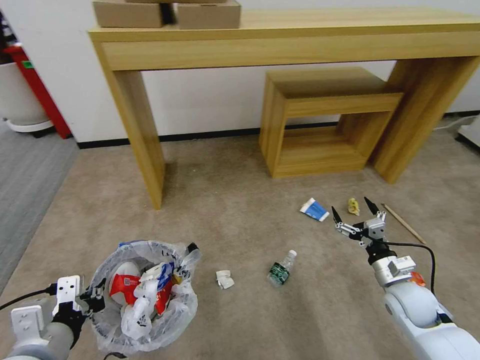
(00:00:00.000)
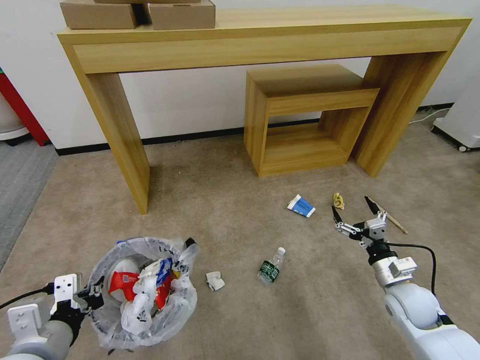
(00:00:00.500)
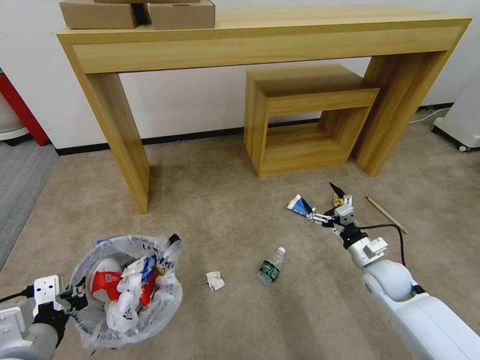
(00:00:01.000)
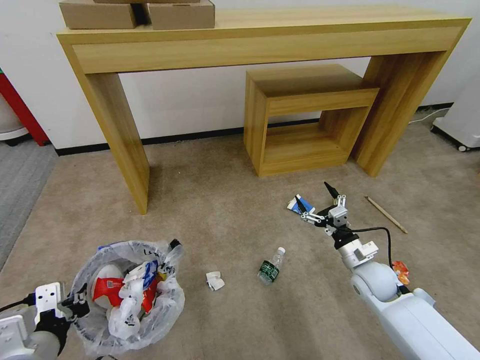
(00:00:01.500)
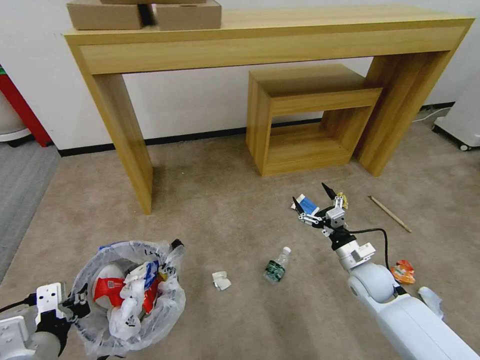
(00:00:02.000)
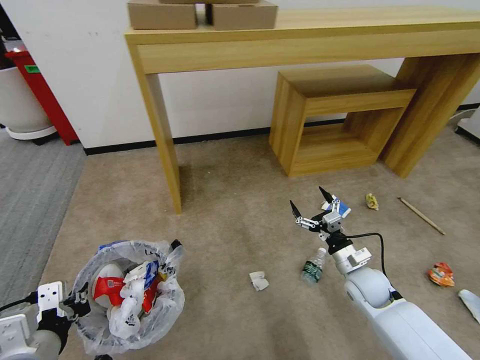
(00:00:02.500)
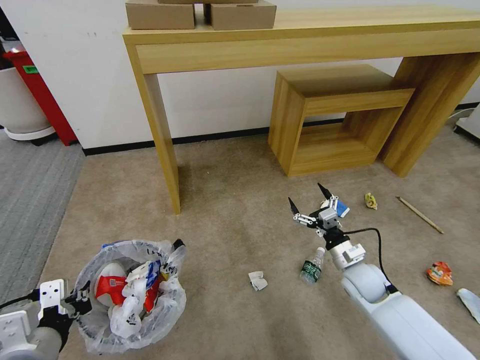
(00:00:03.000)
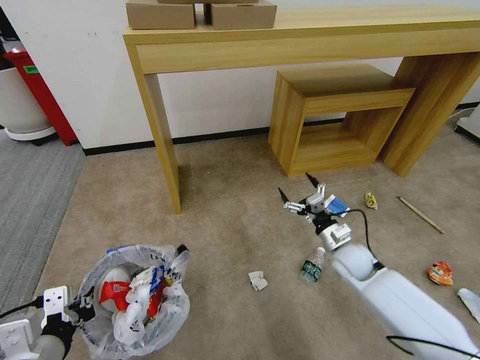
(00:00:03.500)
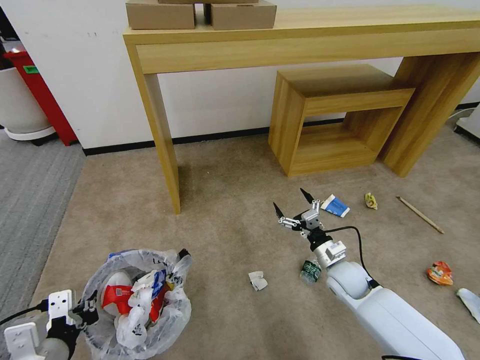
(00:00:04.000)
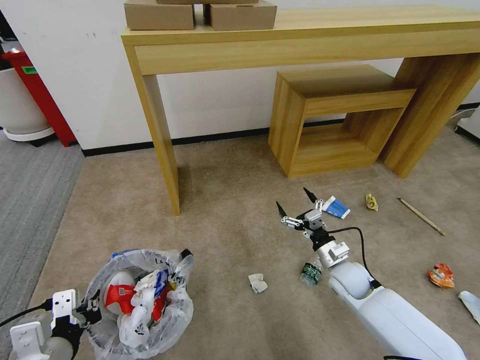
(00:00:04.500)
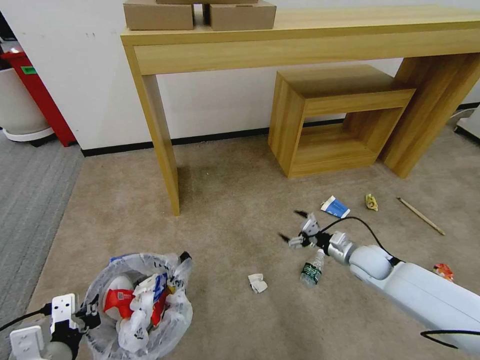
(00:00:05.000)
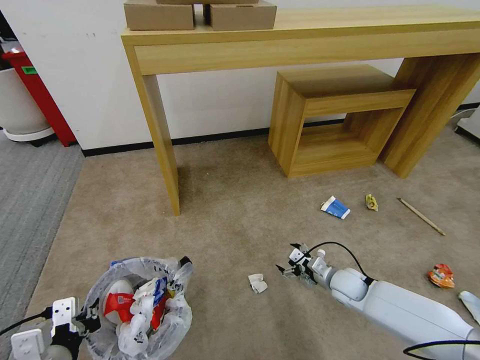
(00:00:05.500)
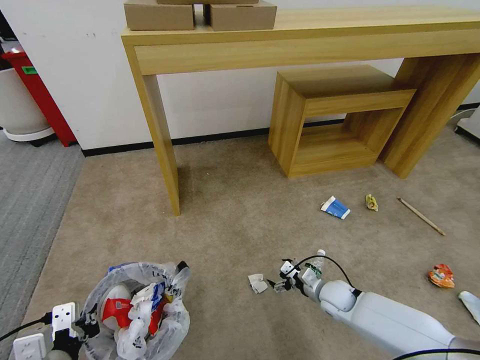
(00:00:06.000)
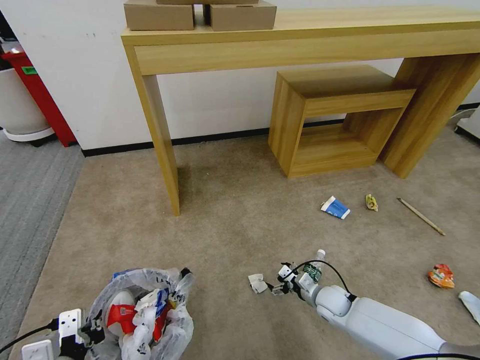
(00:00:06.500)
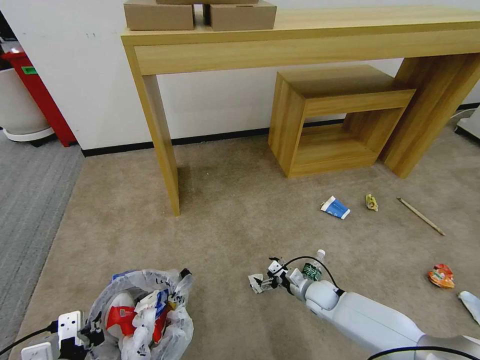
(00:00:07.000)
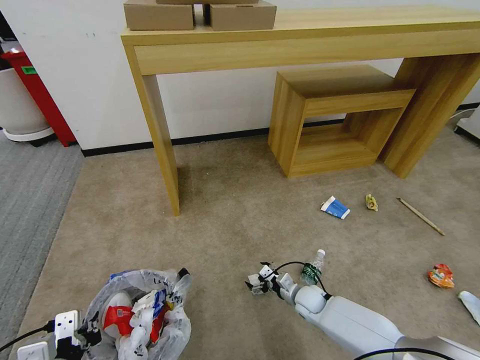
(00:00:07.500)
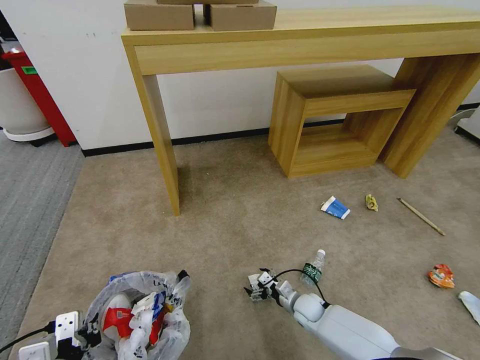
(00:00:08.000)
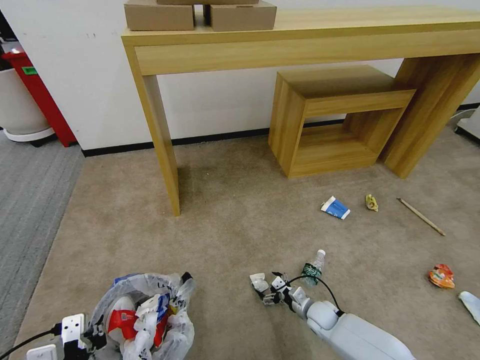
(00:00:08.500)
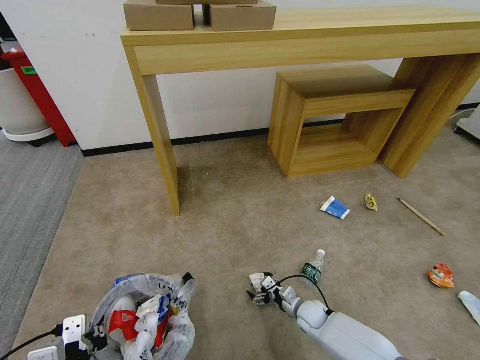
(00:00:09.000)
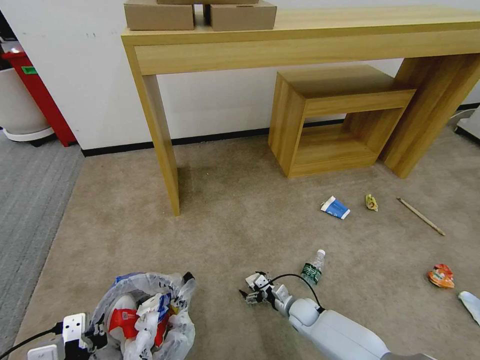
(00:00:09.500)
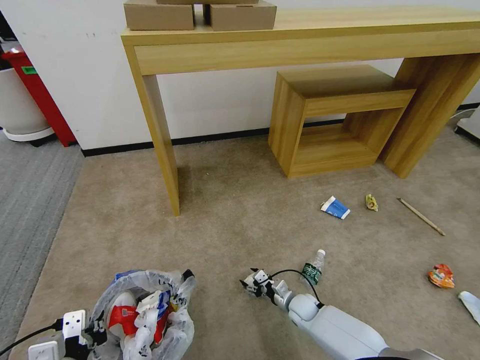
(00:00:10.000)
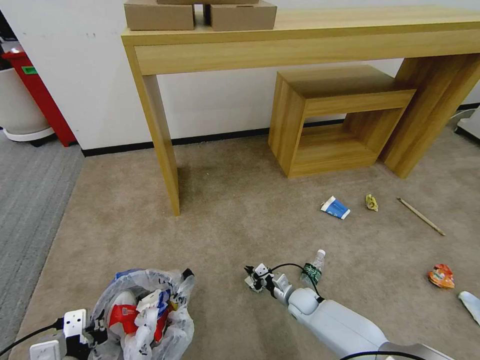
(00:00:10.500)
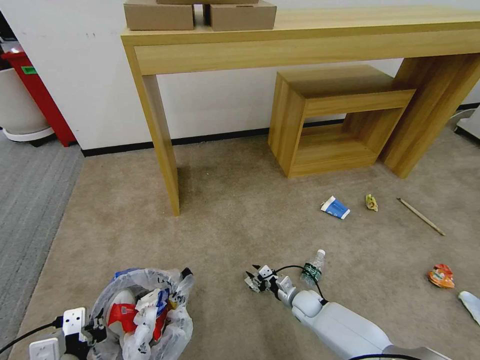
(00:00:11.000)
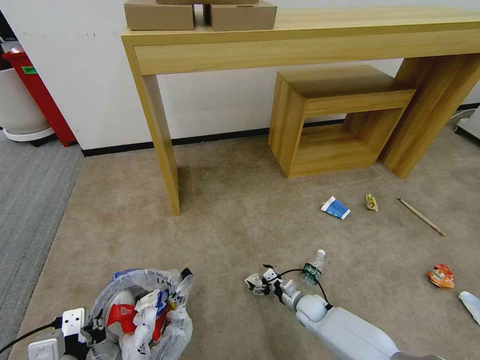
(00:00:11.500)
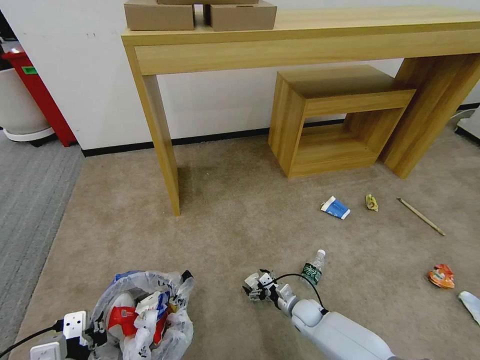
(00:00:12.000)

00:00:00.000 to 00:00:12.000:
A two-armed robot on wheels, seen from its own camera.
Task of the whole recording: Pick up the trash bin and place the garbage on the floor into it.
00:00:00.000 to 00:00:02.000: The right gripper goes about 10 cm to the left and forward.
00:00:02.000 to 00:00:04.000: The right gripper ends up about 5 cm from where it was.
00:00:04.000 to 00:00:06.000: The right gripper goes some 10 cm downward.
00:00:06.000 to 00:00:08.000: The right gripper moves downward and to the left, about 10 cm.
00:00:08.000 to 00:00:10.000: The right gripper closes.
00:00:10.000 to 00:00:12.000: The right gripper opens its fingers.

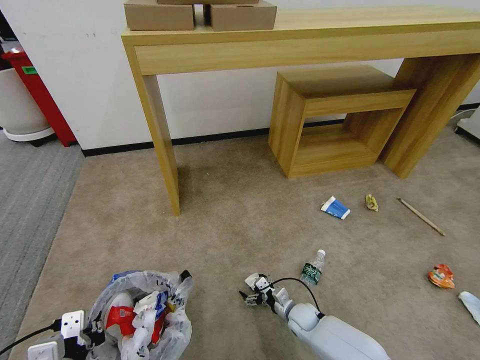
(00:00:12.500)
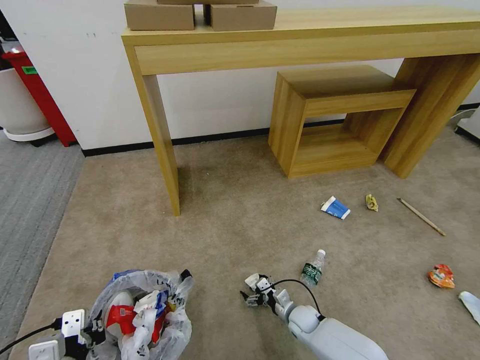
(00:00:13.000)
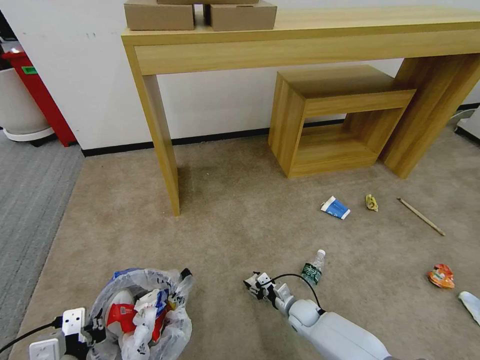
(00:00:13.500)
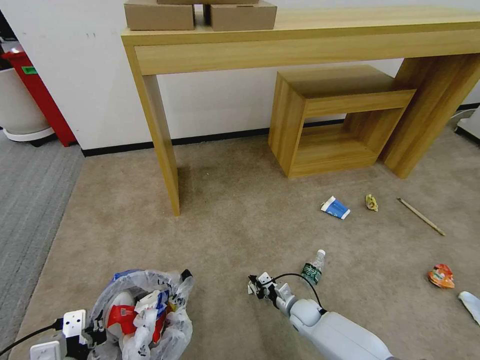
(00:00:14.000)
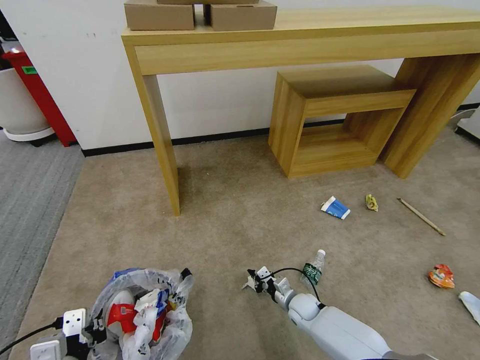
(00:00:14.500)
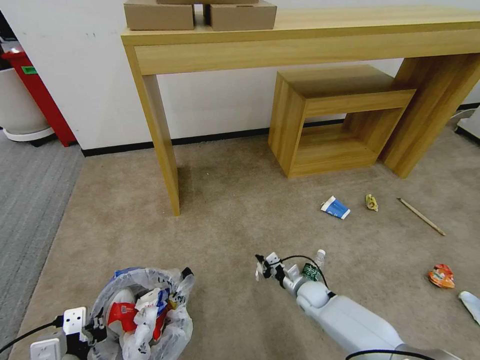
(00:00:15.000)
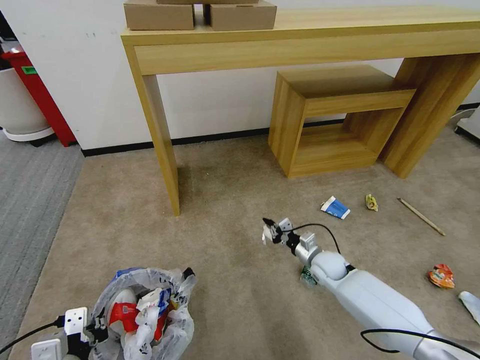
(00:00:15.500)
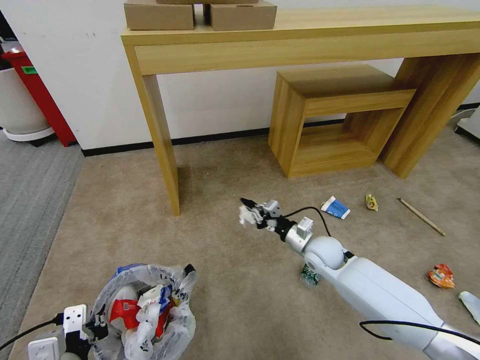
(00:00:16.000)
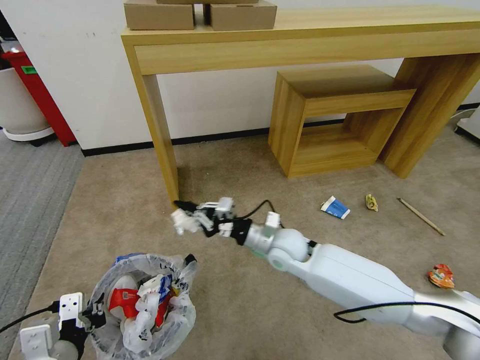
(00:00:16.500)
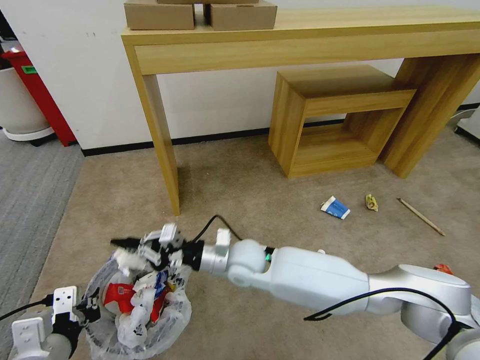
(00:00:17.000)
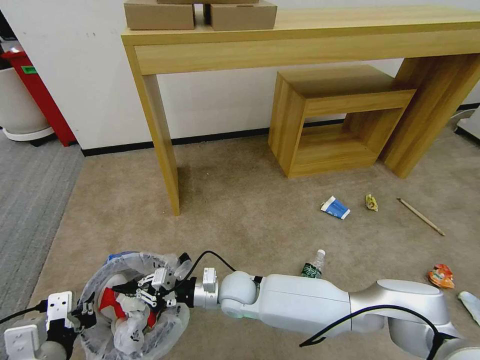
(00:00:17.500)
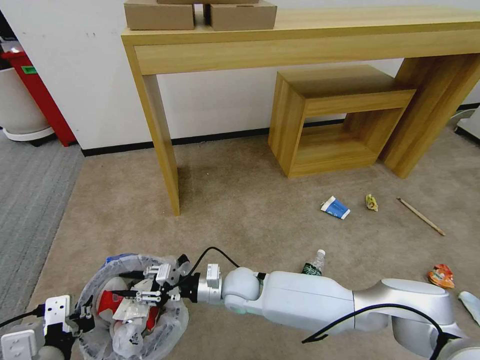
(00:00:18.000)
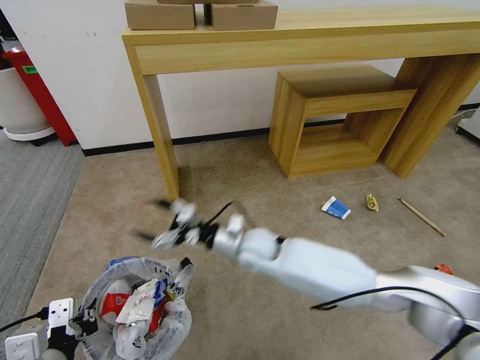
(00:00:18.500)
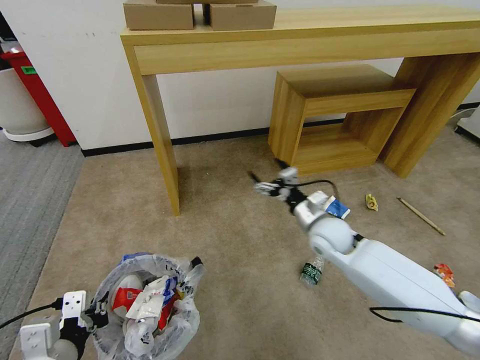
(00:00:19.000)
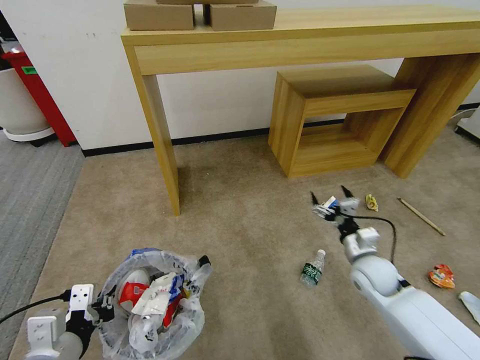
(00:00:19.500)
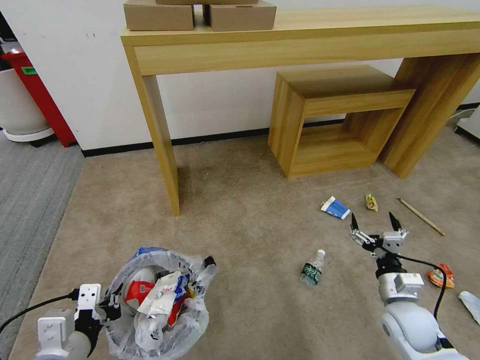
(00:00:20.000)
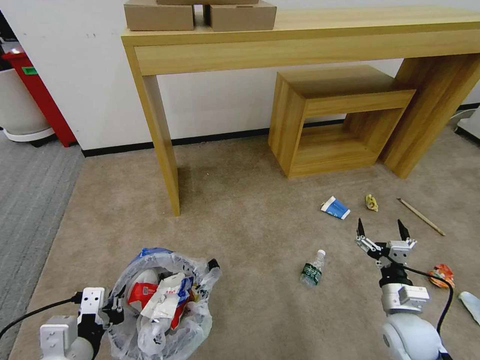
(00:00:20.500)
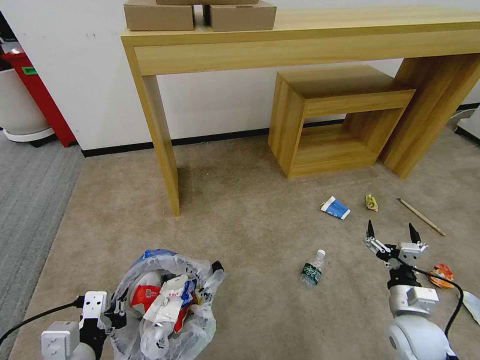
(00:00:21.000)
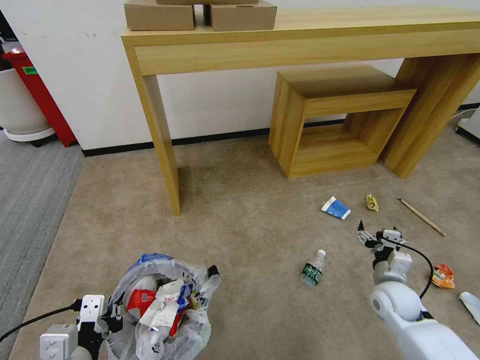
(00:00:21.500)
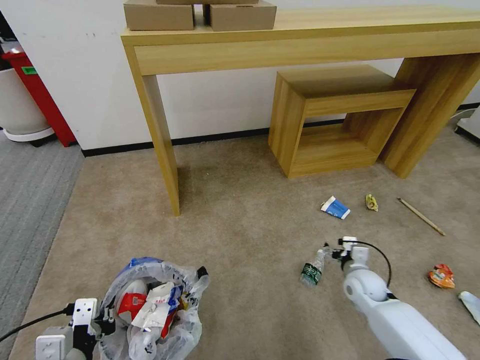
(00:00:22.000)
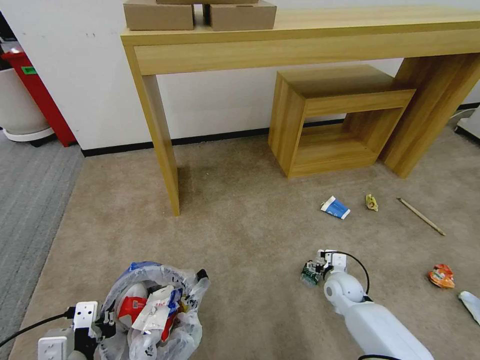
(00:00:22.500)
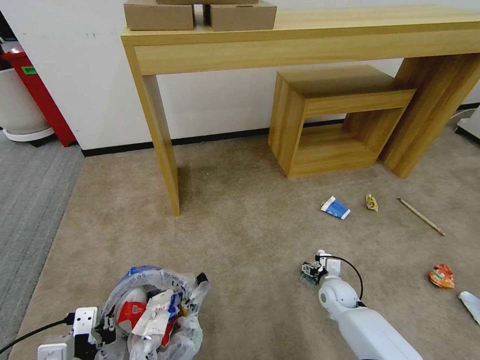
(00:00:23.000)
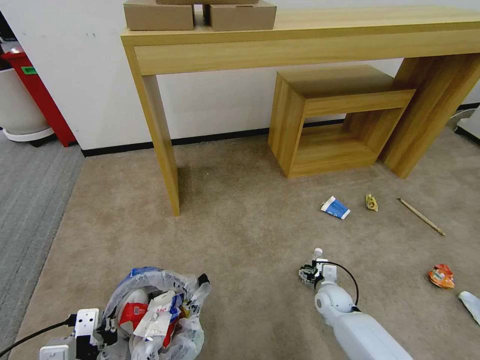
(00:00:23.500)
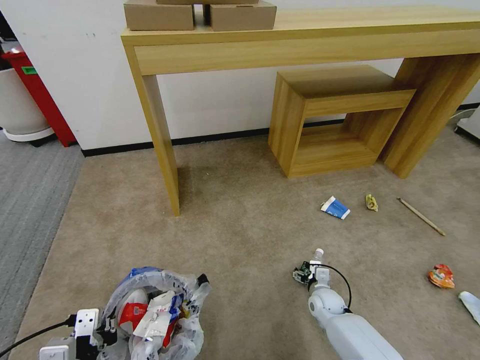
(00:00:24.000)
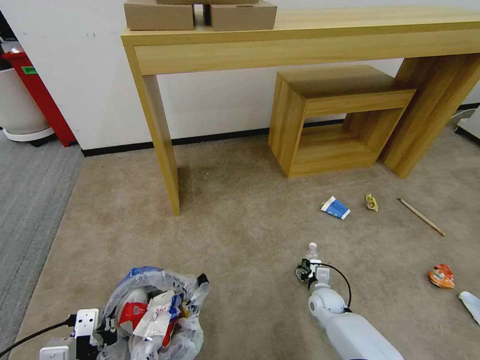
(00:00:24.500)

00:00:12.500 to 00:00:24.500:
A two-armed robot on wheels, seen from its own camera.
Task of the whole recording: Pick up the trash bin and place the garbage on the floor into it.
00:00:12.500 to 00:00:14.500: The right gripper closes.
00:00:14.500 to 00:00:16.500: The right gripper heads upward, covering about 25 cm.
00:00:16.500 to 00:00:18.500: The right gripper shifts roughly 5 cm to the left, and opens.
00:00:18.500 to 00:00:20.500: The right gripper shifts about 35 cm to the right and backward.
00:00:20.500 to 00:00:22.500: The right gripper moves forward, downward and to the left, about 15 cm.
00:00:22.500 to 00:00:24.500: The right gripper moves downward, about 5 cm.

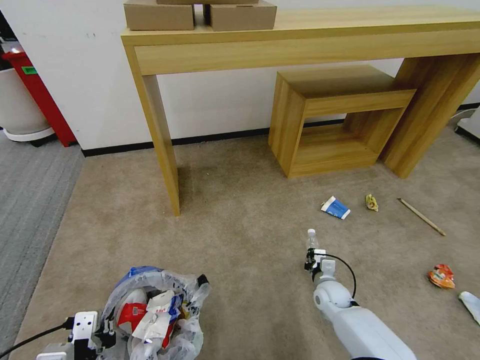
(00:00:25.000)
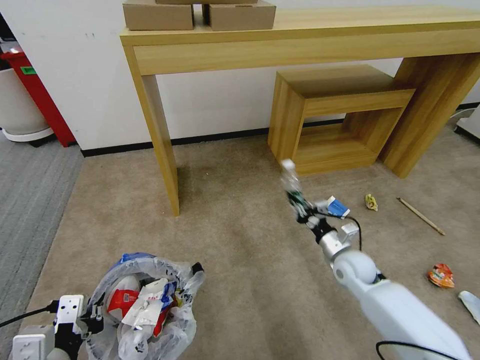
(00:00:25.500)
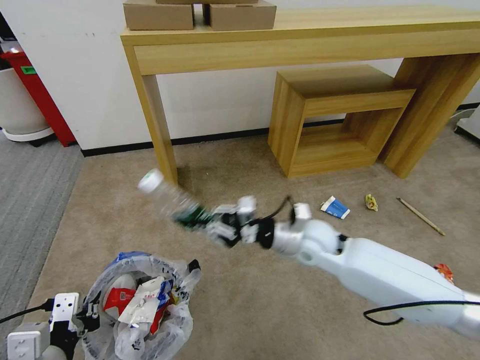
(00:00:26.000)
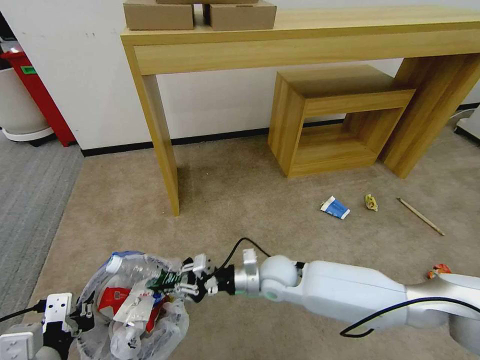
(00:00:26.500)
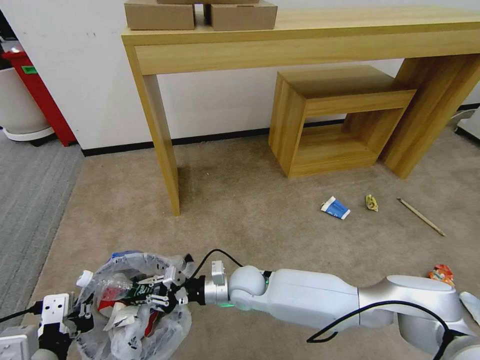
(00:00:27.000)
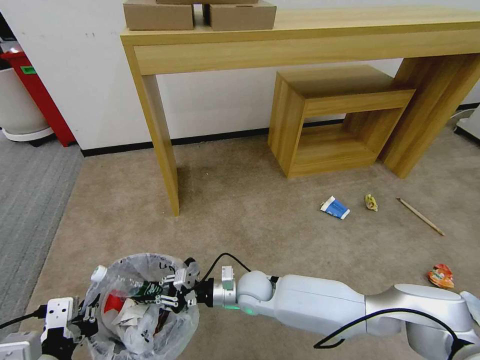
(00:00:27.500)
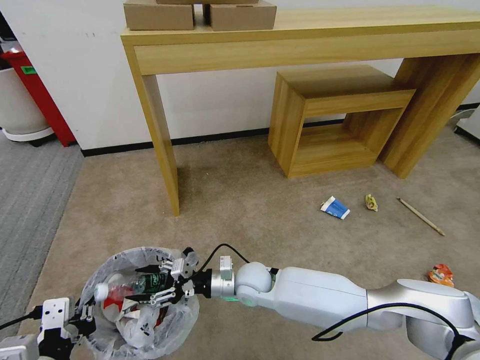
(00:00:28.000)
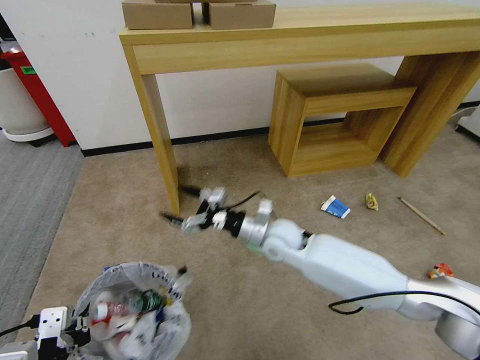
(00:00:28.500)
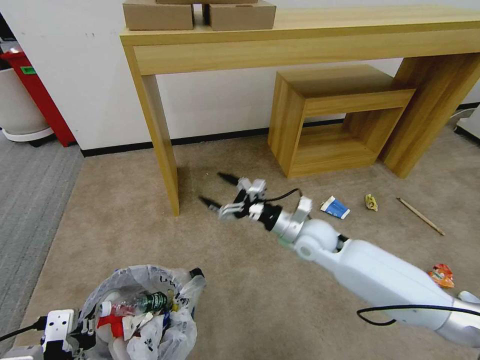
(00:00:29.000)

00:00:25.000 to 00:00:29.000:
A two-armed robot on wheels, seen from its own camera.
Task of the whole recording: Pick up the trash bin and place the garbage on the floor into it.
00:00:25.000 to 00:00:27.000: The right gripper shifts about 30 cm to the left and upward; the left gripper travels upward by approximately 5 cm.
00:00:27.000 to 00:00:29.000: The right gripper shifts about 20 cm to the right, upward and forward, and opens its fingers.
